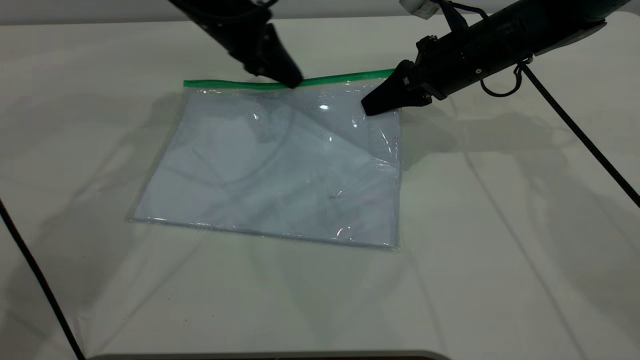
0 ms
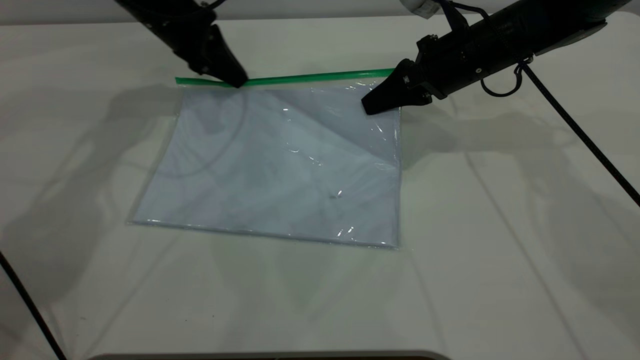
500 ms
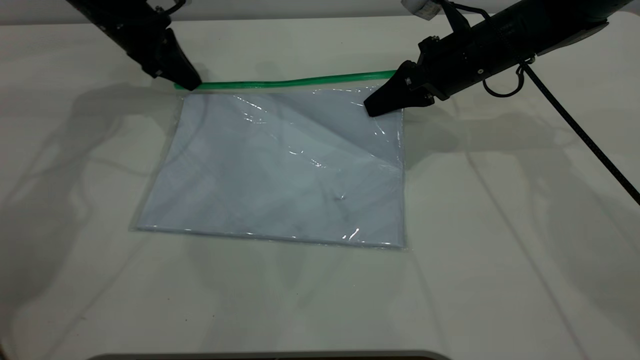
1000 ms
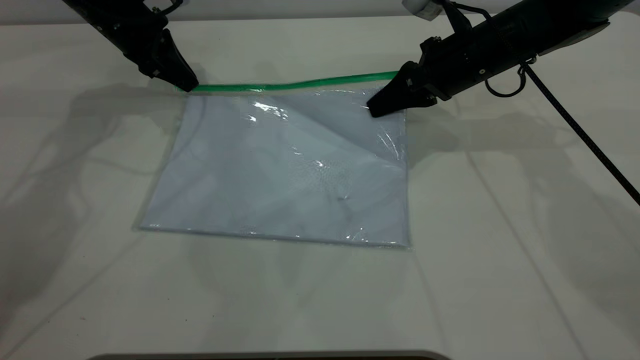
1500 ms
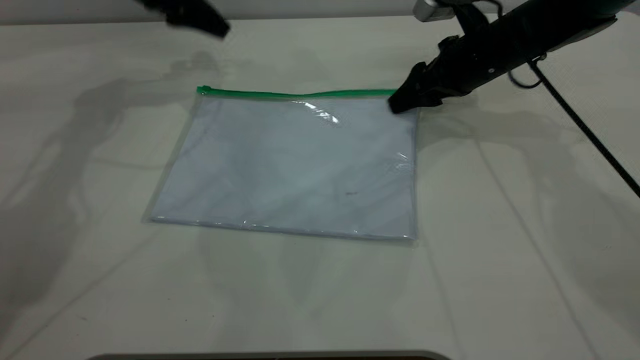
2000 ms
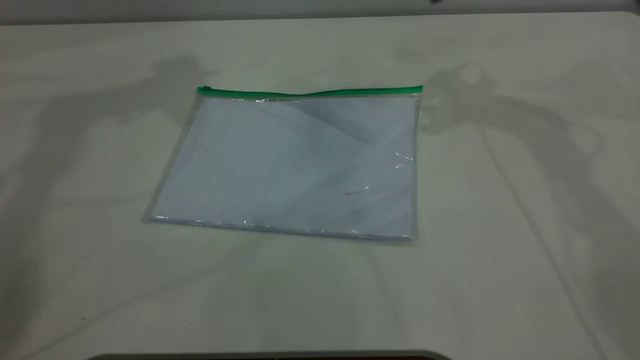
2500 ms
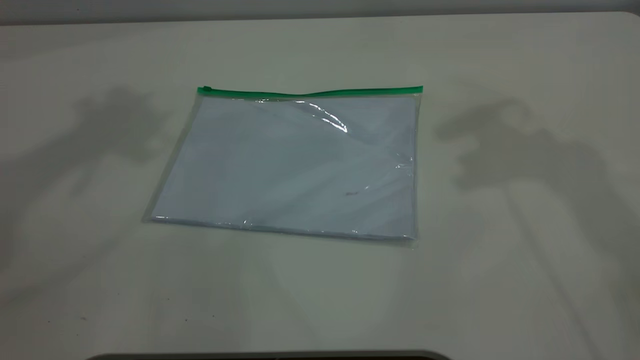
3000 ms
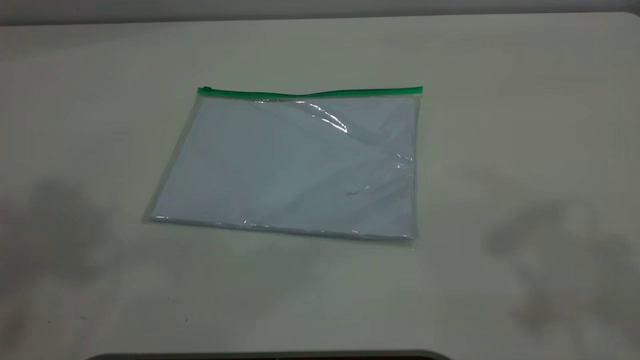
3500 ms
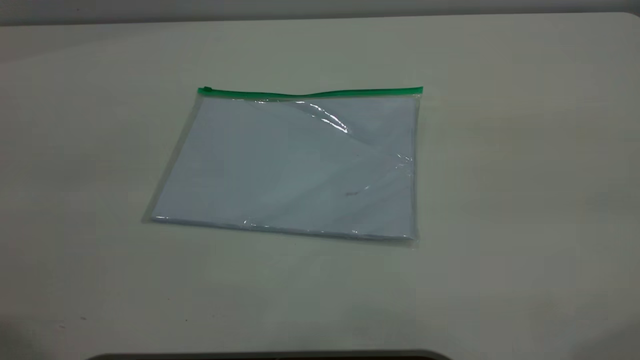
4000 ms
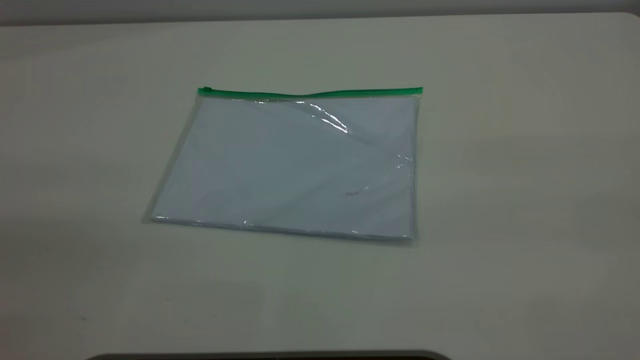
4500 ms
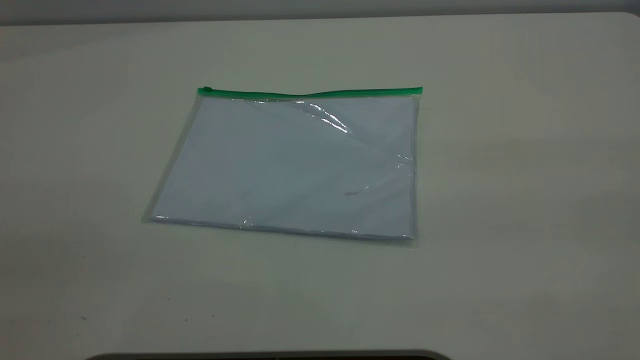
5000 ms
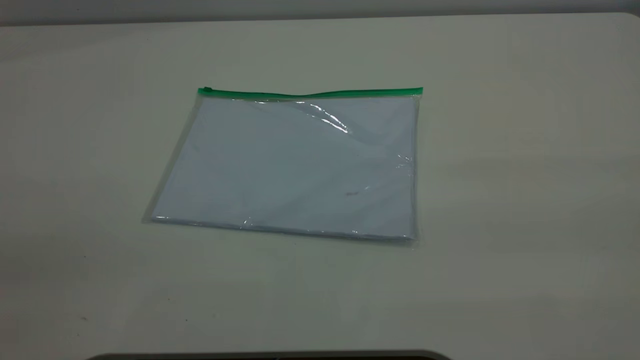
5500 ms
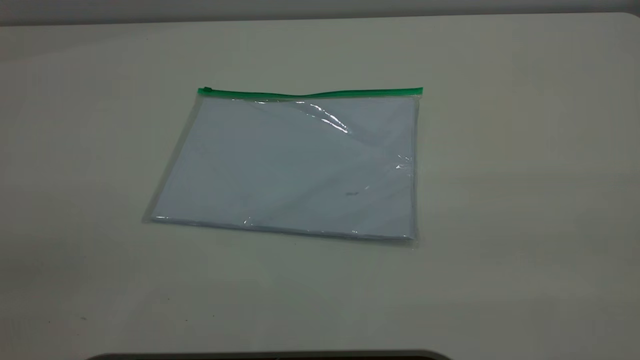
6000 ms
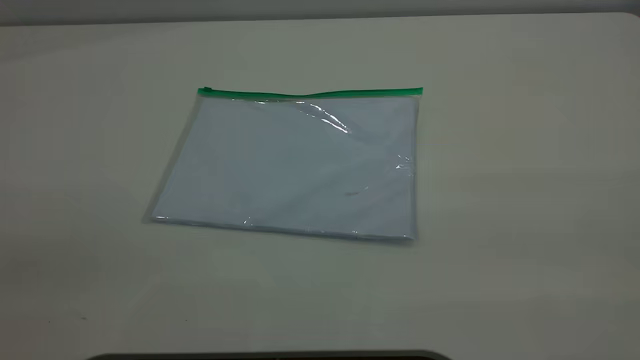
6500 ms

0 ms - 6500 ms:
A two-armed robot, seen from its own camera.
0 ms - 2000 ms: The left gripper goes approximately 10 cm to the left and upward, and opens up. Meanwhile the right gripper opens up.
2000 ms - 4500 ms: The right gripper moves backward and upward, roughly 50 cm, while the left gripper goes some 50 cm backward.
